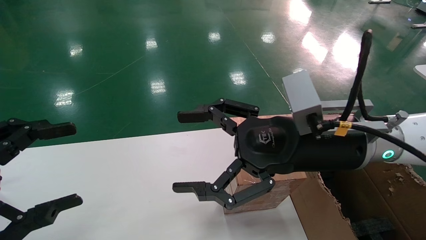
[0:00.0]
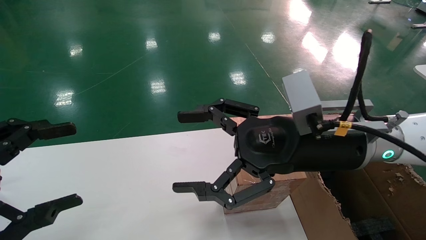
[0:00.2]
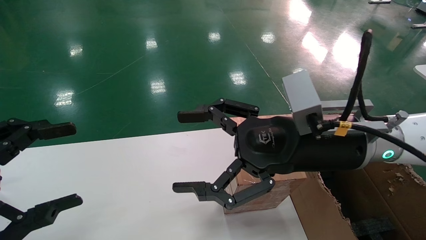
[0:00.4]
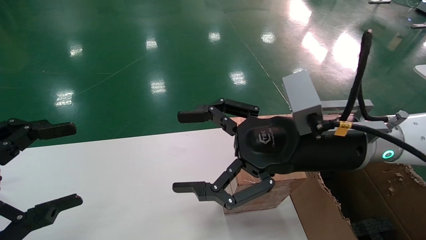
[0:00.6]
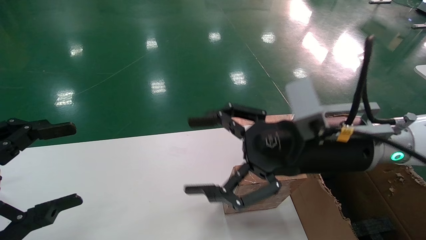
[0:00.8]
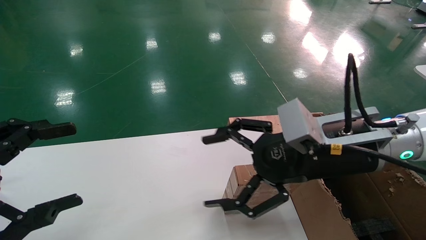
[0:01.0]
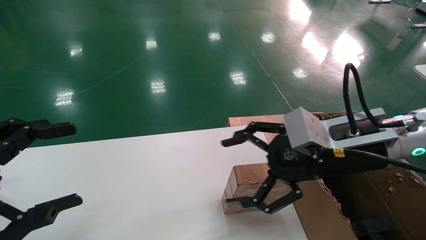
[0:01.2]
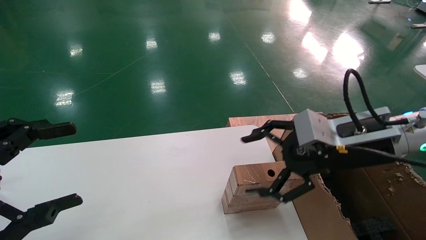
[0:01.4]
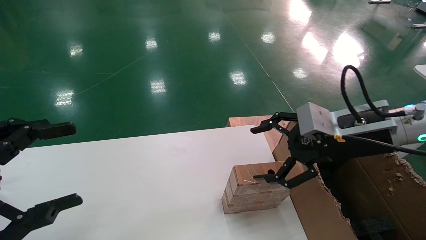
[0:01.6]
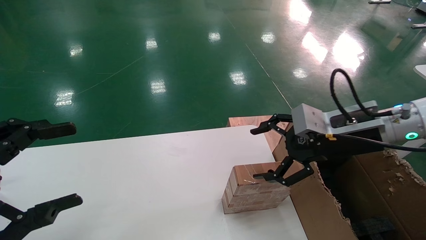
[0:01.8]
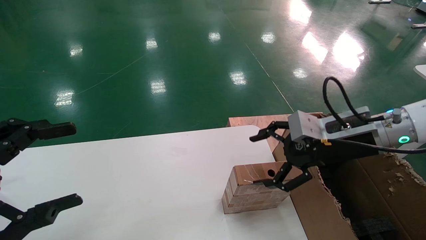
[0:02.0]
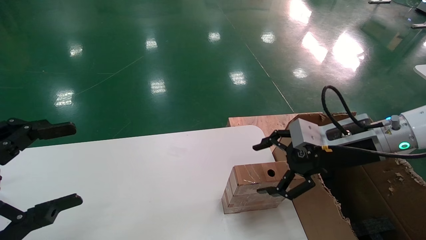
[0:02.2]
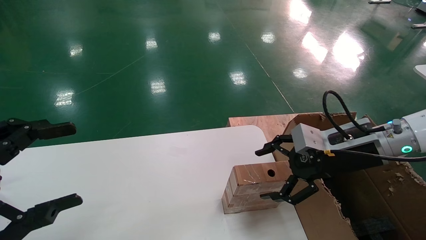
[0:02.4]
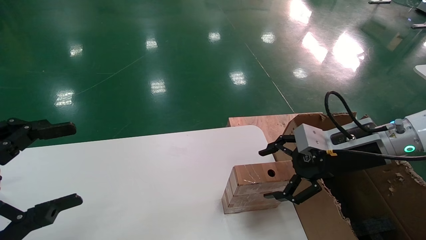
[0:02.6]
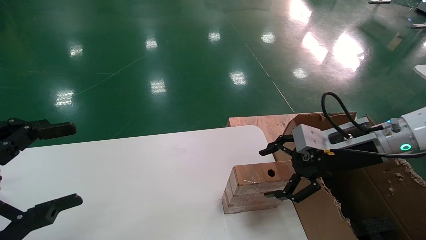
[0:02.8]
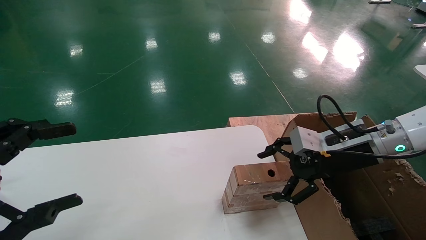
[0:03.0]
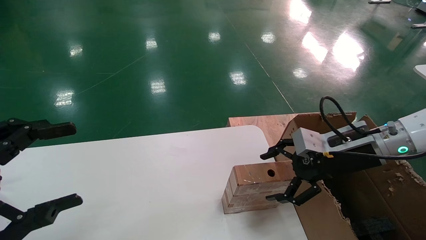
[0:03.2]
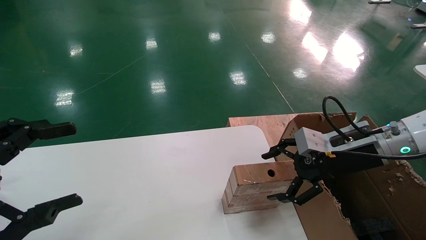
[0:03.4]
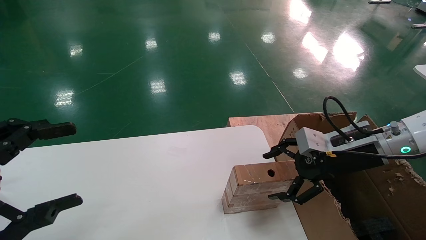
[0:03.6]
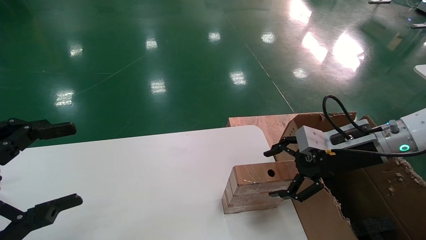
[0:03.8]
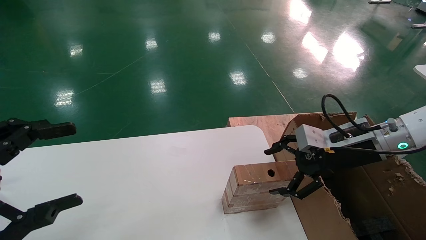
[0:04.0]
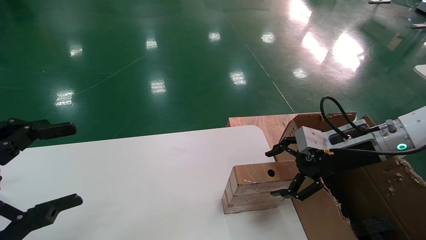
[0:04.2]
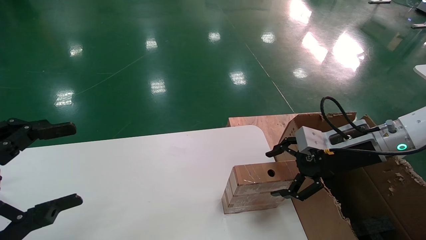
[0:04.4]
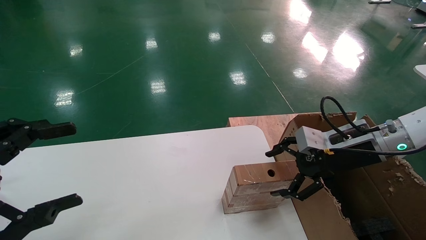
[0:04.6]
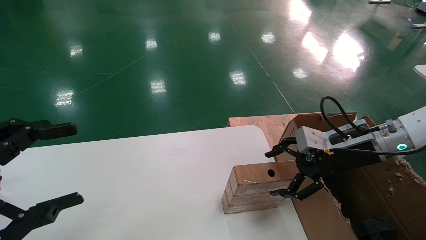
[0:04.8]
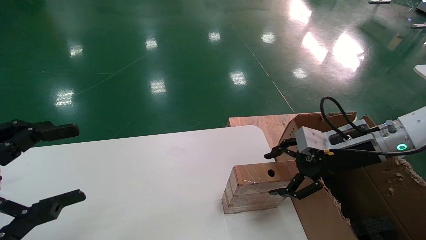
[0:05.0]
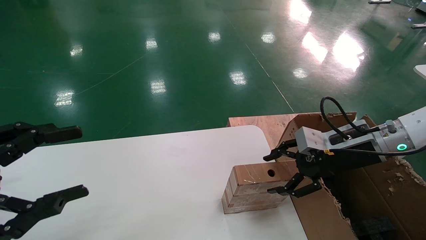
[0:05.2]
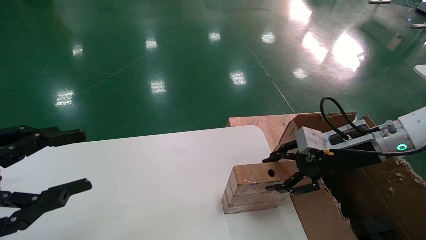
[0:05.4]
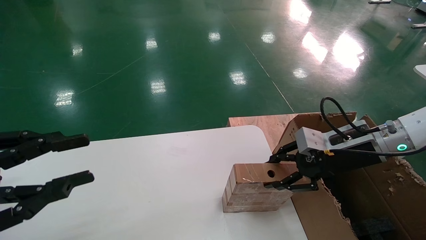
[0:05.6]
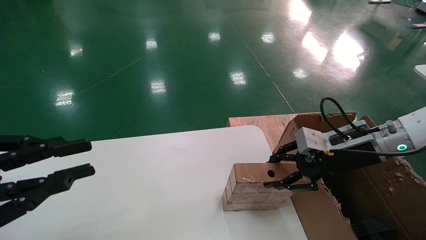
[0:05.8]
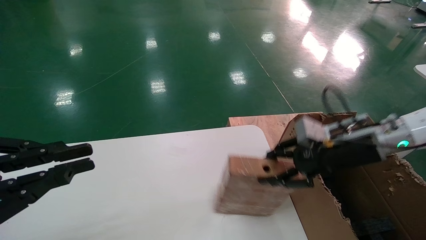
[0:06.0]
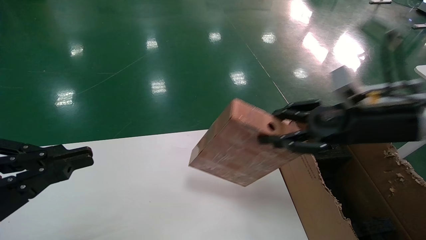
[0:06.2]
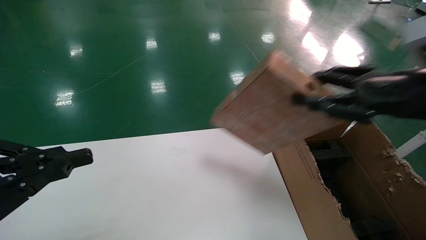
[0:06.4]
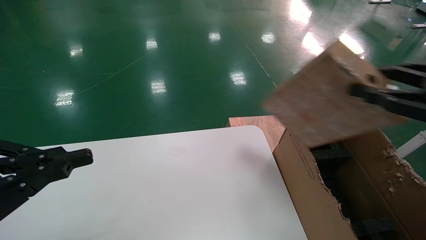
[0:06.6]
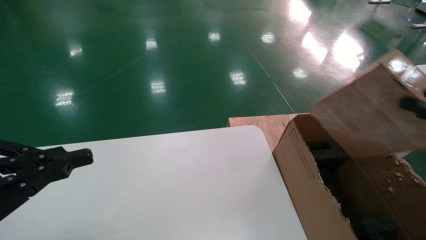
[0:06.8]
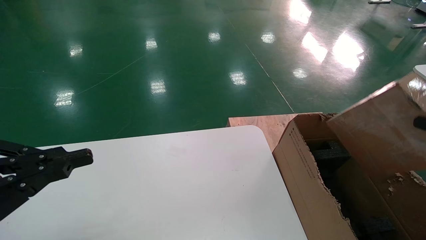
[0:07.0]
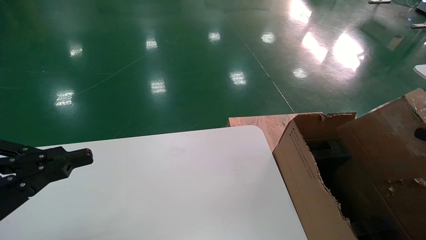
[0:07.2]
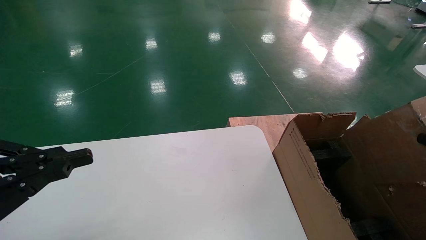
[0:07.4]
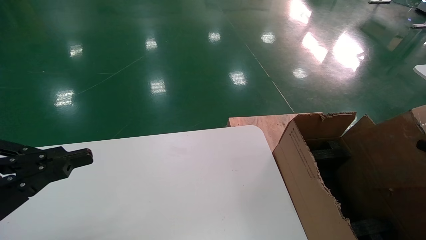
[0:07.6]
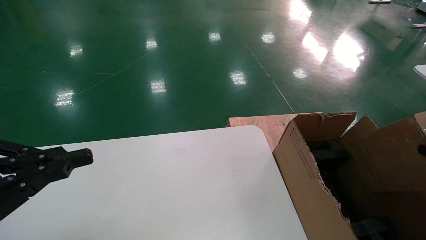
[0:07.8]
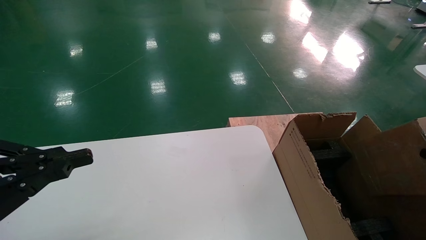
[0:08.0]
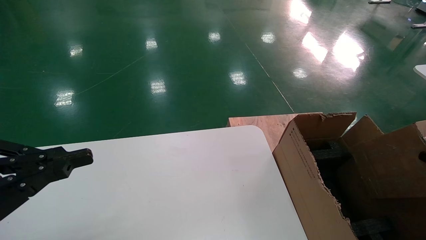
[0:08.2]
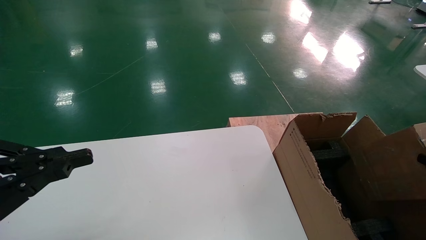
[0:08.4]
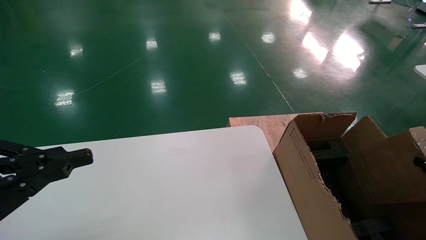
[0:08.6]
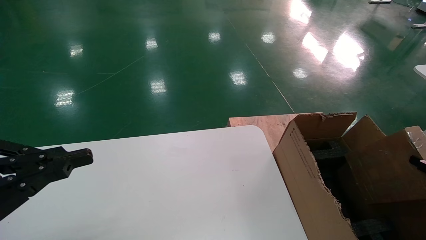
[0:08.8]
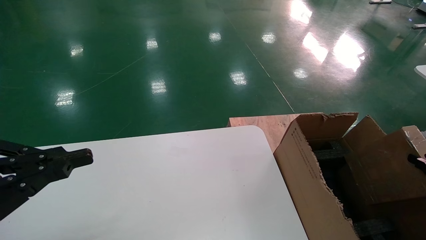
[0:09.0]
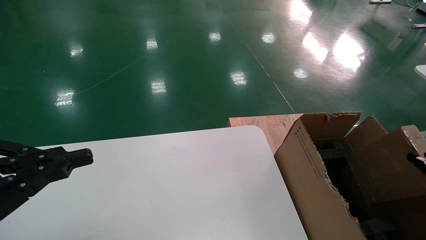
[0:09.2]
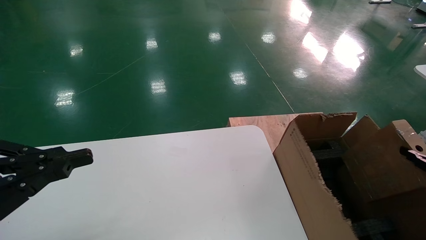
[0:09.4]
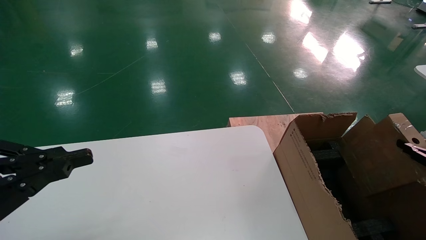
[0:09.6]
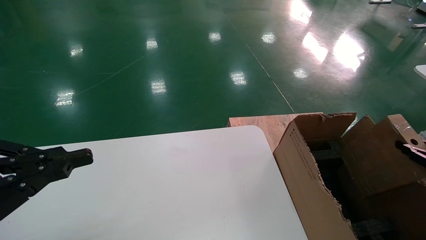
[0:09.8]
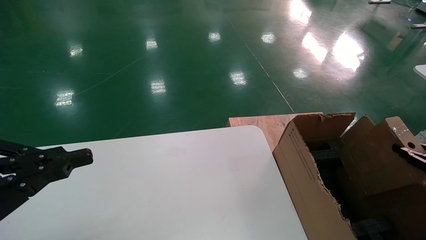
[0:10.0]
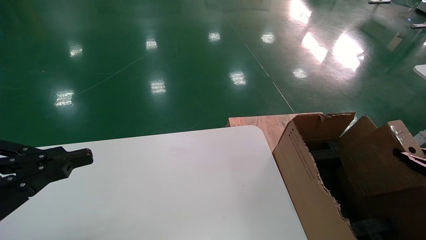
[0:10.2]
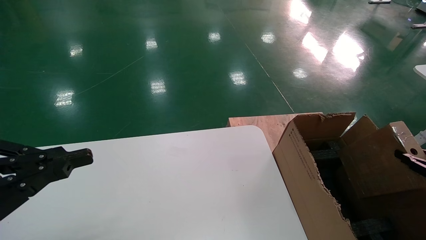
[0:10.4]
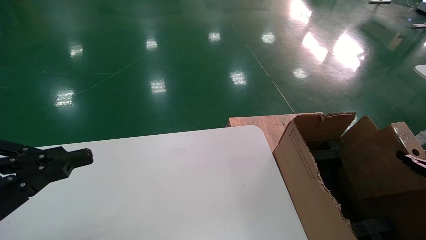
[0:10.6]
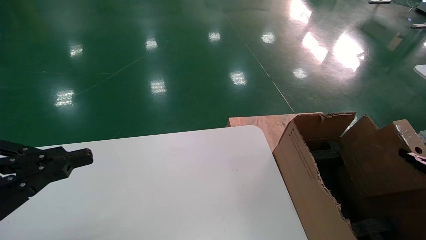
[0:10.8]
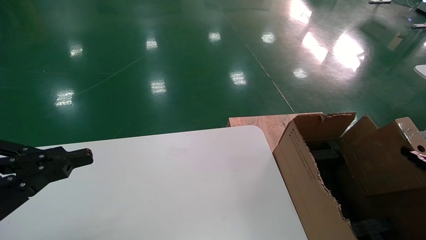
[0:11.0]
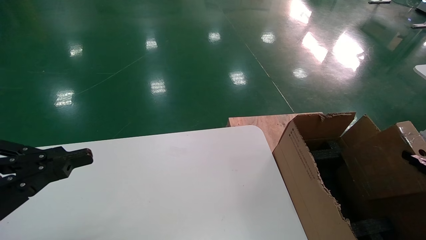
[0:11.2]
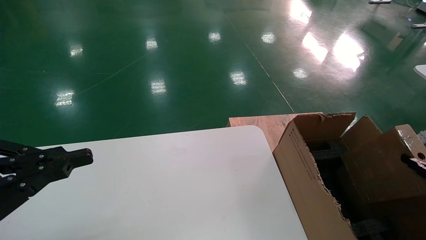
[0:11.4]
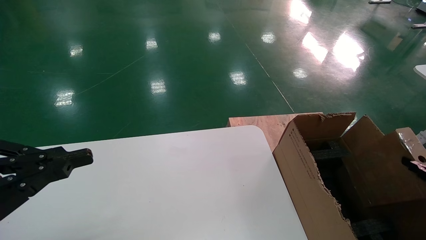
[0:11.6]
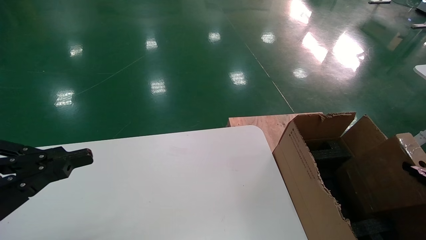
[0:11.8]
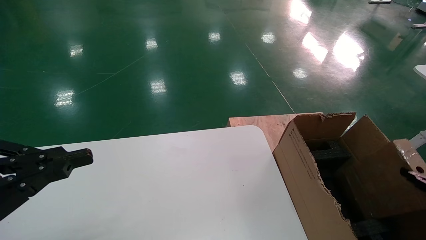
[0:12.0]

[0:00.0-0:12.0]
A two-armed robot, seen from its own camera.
Task of the whole recording: put the box on the table into the big box.
Step, 0:01.2 to 0:05.8: Pick up the mouse and the power cord paper box.
0:00.0 to 0:01.6: The right gripper moves to the right, approximately 10 cm.
0:01.6 to 0:03.0: The right gripper shifts by some 5 cm.
0:03.0 to 0:04.4: There are only small adjustments of the grippers.
0:04.4 to 0:06.0: The right gripper closes. Meanwhile the left gripper closes.
0:06.0 to 0:07.6: The right gripper shifts about 30 cm to the right and backward.
0:07.6 to 0:09.0: The right gripper shifts approximately 5 cm downward.
0:09.0 to 0:12.0: The grippers move only a little.

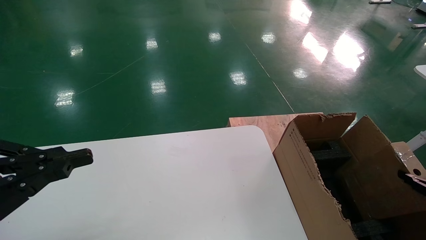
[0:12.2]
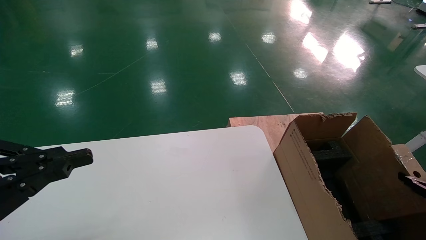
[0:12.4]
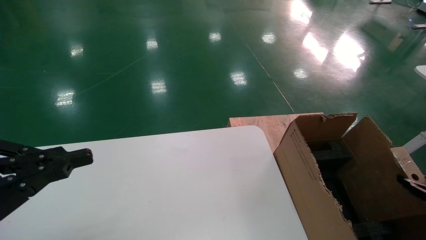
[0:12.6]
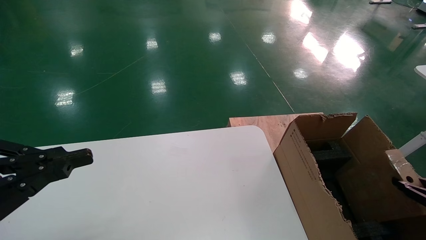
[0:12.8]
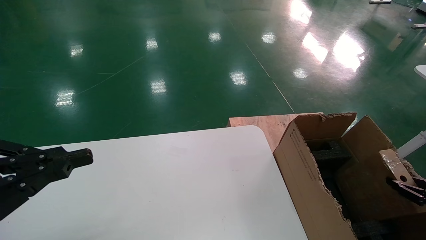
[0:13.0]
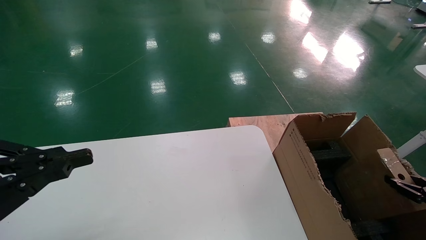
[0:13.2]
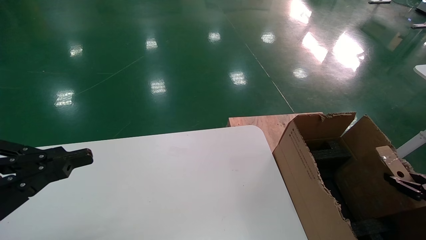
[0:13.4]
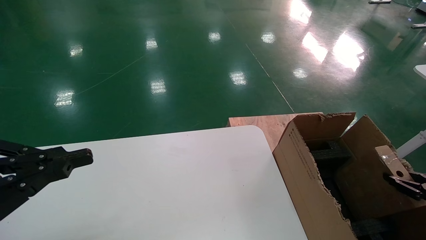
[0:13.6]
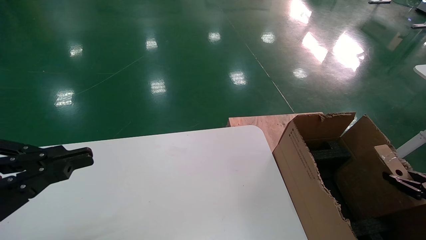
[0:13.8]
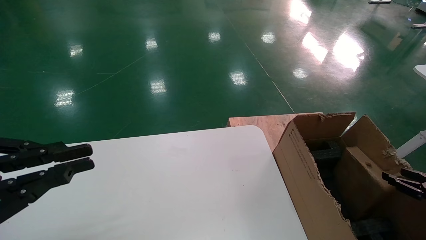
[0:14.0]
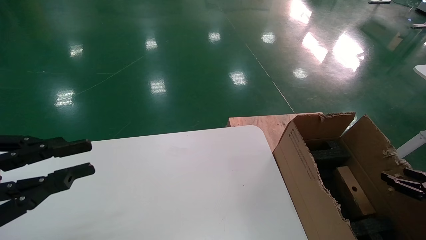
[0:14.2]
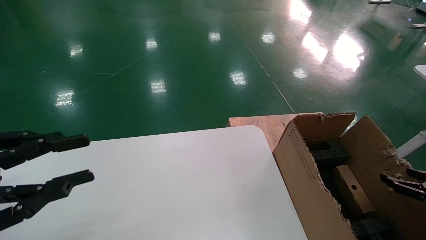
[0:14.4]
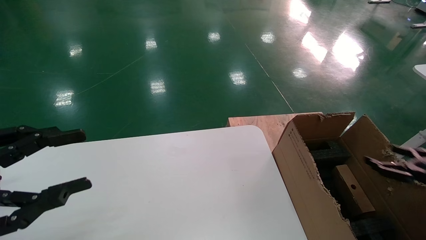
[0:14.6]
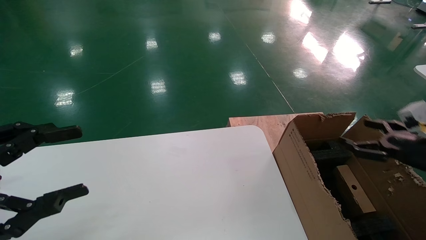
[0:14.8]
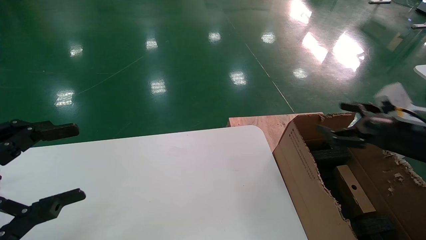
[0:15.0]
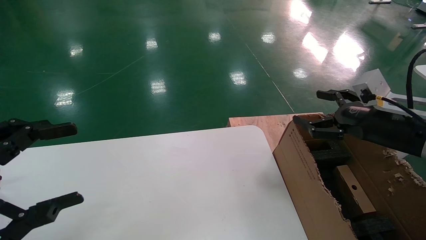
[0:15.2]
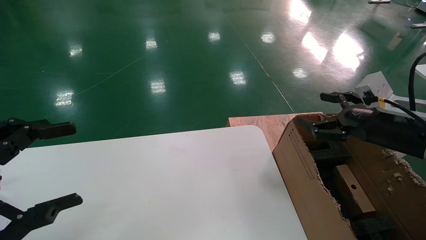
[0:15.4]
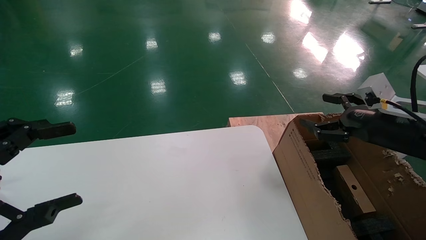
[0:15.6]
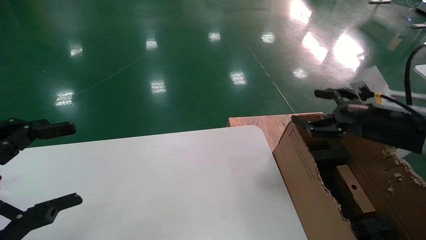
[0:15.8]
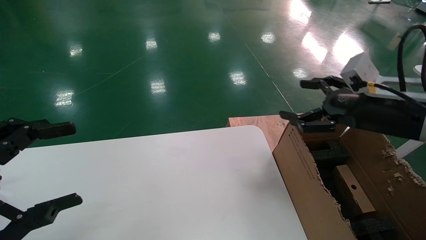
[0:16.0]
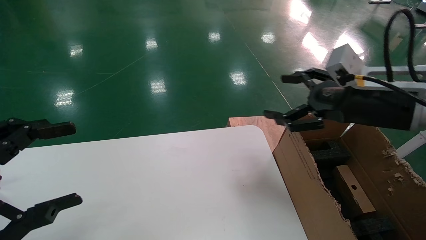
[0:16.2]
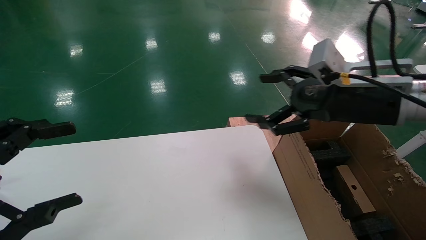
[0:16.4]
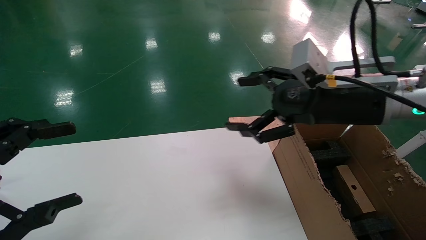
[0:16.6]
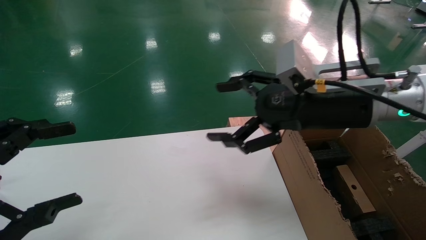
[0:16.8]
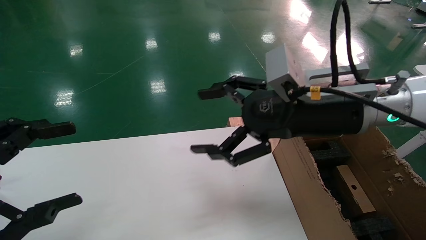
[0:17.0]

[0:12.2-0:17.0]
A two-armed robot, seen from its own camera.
Task of the whole recording: put the box on the table into the big box.
Step, 0:12.2 to 0:14.2: Place the mouse and the power cord paper box into the container.
0:12.2 to 0:13.8: There are only small adjustments of the grippers.
0:13.8 to 0:15.4: The left gripper opens. Meanwhile the right gripper travels to the left, upward and forward by approximately 25 cm, and opens its fingers.
0:15.4 to 0:17.0: The right gripper travels to the left and upward by some 20 cm.
